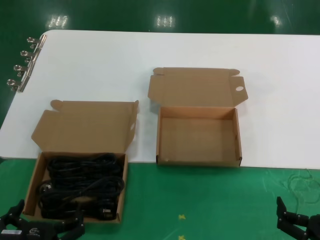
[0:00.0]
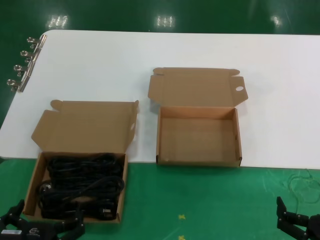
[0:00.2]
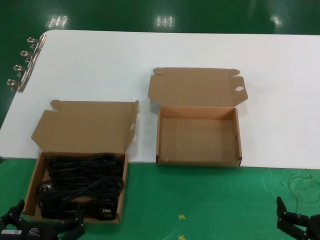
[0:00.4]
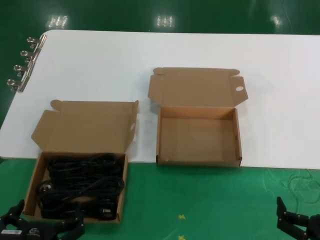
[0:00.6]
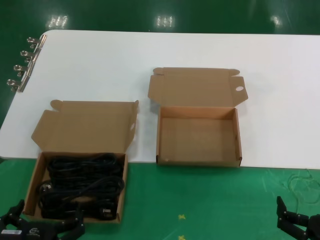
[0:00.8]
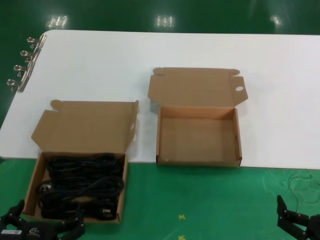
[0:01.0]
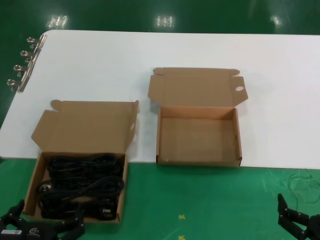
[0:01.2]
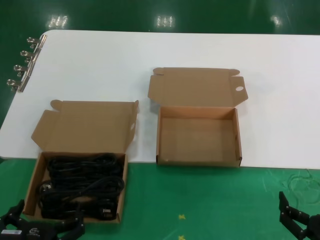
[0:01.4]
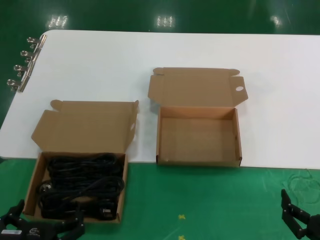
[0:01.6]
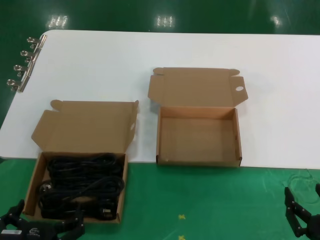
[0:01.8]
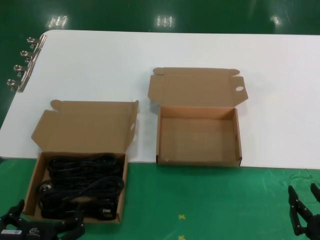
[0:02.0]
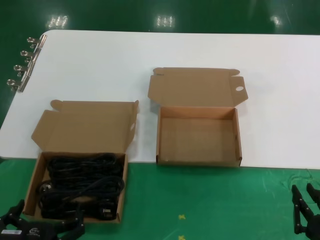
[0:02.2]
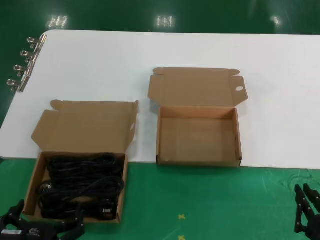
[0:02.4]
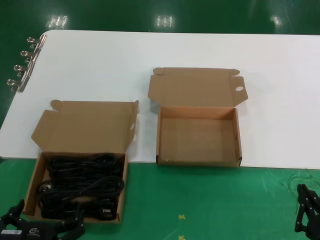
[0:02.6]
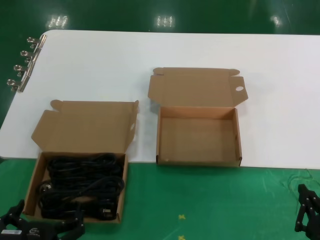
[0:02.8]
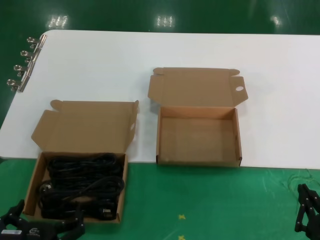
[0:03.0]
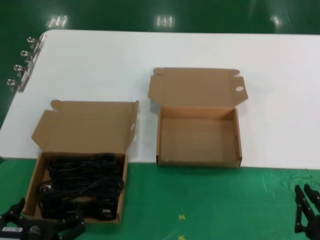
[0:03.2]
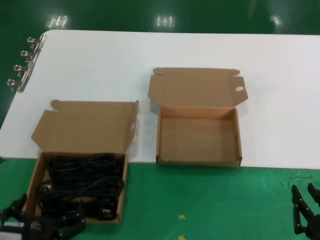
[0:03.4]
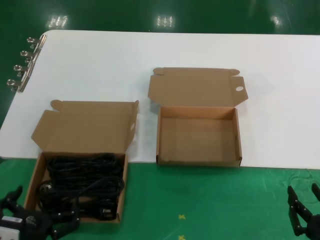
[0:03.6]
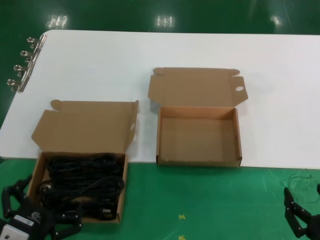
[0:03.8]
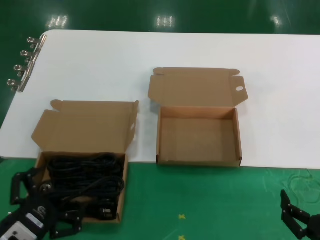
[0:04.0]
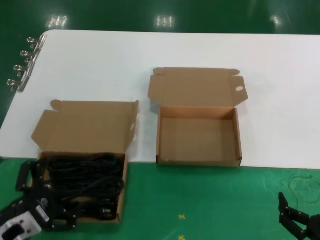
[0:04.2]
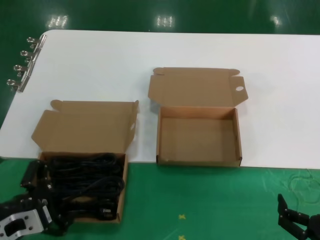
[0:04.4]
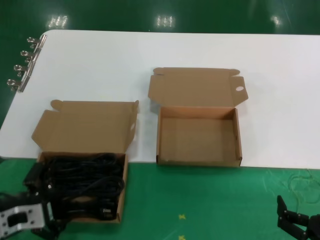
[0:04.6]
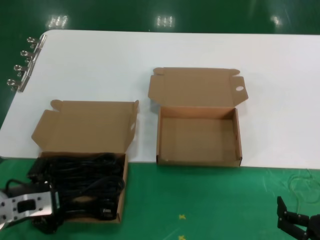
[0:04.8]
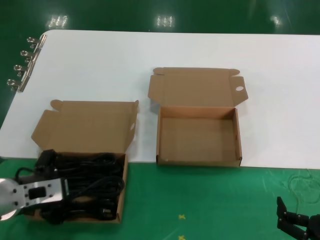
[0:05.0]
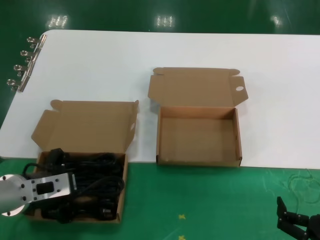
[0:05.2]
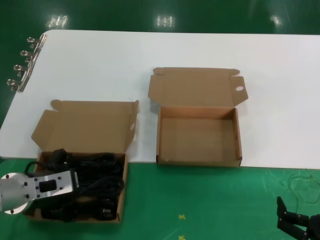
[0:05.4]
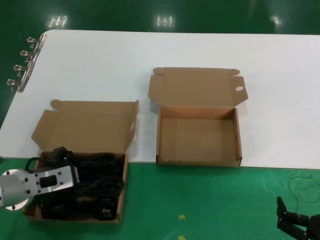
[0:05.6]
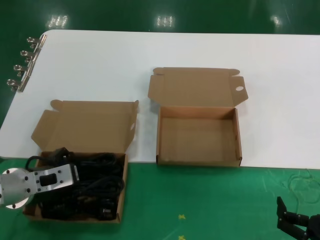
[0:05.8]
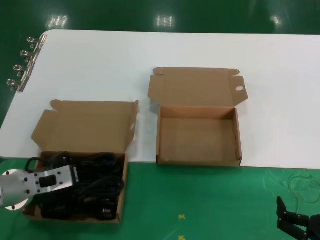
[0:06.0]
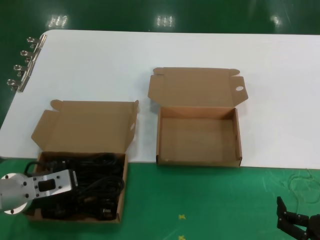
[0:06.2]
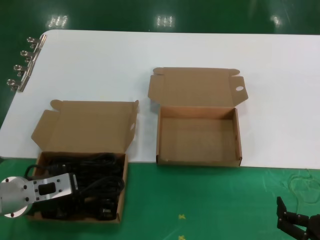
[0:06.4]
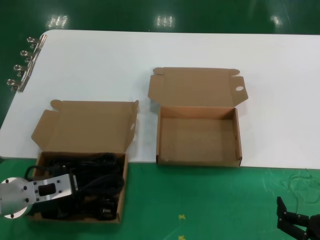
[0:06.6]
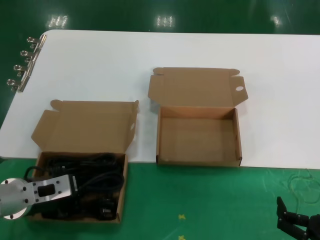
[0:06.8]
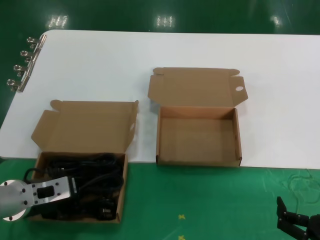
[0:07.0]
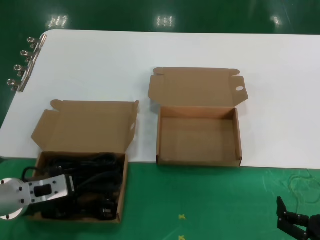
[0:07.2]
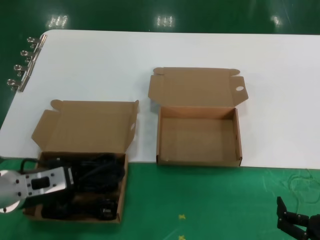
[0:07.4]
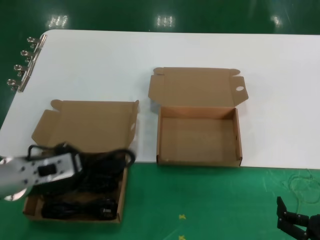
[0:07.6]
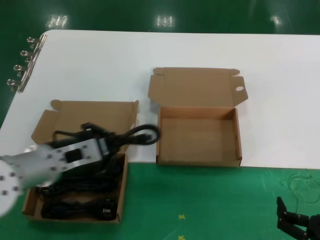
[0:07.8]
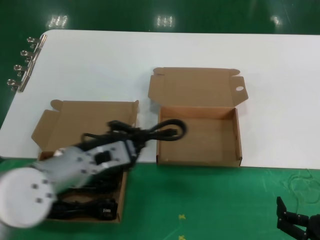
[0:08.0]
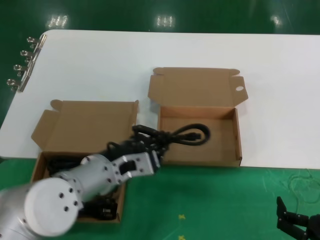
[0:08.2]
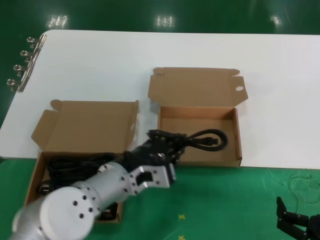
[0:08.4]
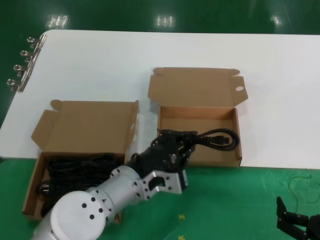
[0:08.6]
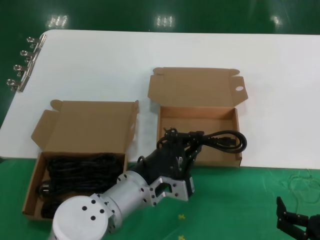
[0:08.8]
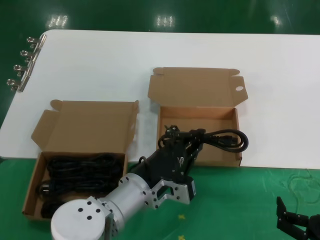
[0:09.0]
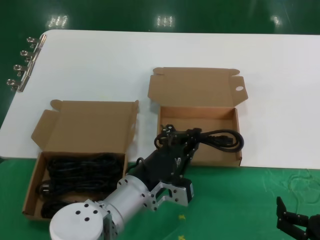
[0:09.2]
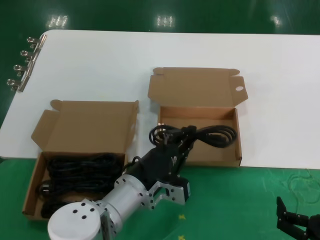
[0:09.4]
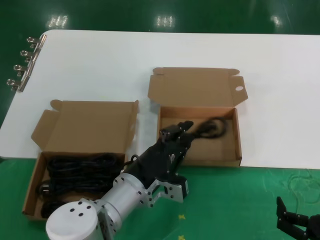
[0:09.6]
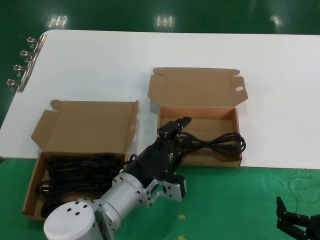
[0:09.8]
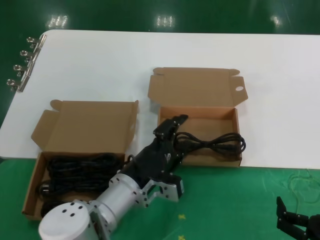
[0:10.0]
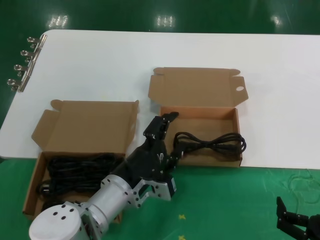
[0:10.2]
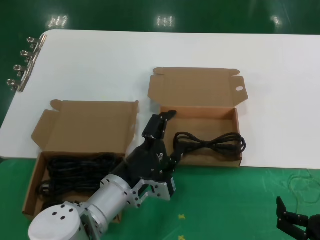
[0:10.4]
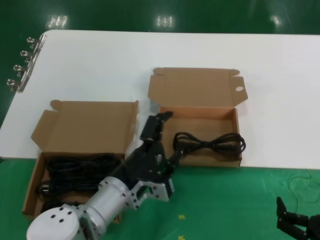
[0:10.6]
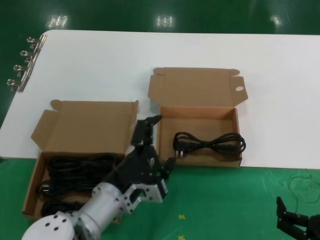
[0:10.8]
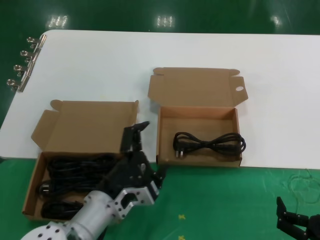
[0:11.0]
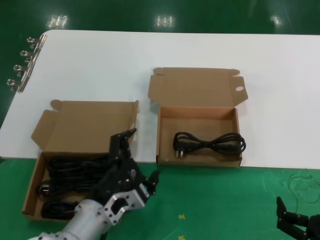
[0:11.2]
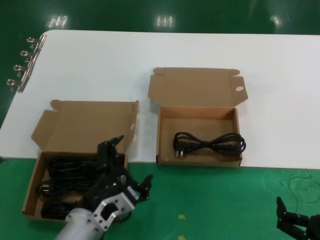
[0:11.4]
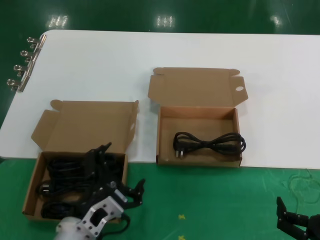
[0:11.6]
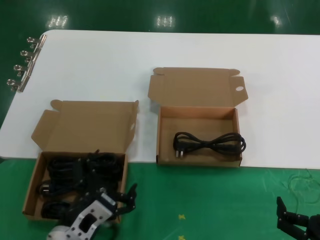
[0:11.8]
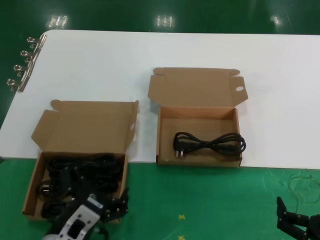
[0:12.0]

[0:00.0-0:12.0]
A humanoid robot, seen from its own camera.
Task of the whole recording: take the parts from the box containing them and put them into an empty box.
Step, 0.0 to 6.0 s: Grasp the data cable.
Step, 6.4 to 10.2 s: Place the data cable in the another box.
0.0 to 3.0 s: Both hands stay put.
3.0 to 4.4 s: The left hand moves to the left, upward and forward, roughly 15 cm.
4.4 to 6.0 s: The left hand shifts roughly 10 cm forward and upward.
6.0 to 7.6 s: The hands make only small movements.
7.6 to 9.0 s: The left hand is displaced to the right and downward by about 20 cm.
9.0 to 10.4 s: The hands move only a little.
10.4 to 12.0 s: The left hand moves backward, to the left and downward, roughly 15 cm.

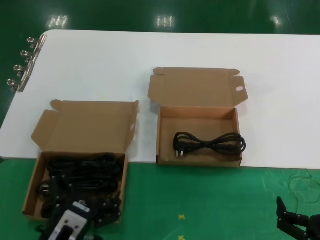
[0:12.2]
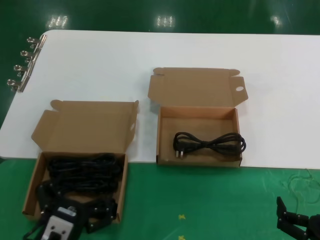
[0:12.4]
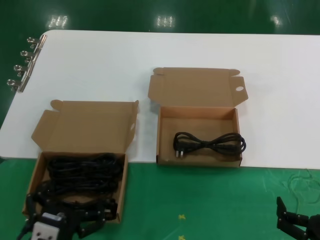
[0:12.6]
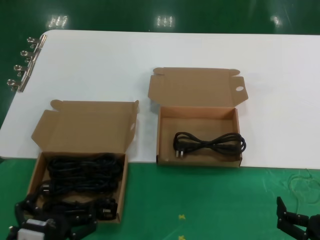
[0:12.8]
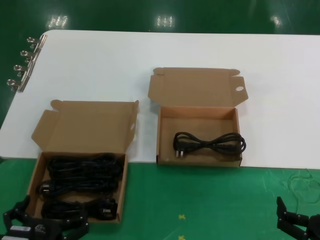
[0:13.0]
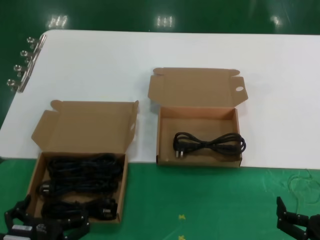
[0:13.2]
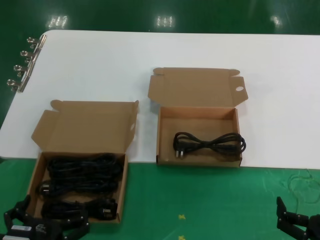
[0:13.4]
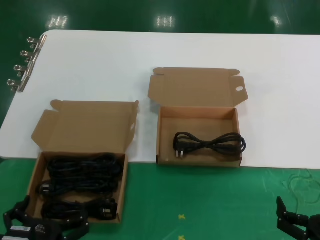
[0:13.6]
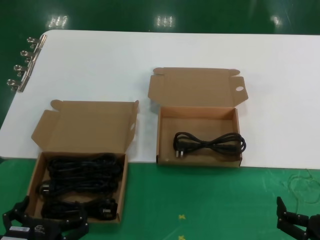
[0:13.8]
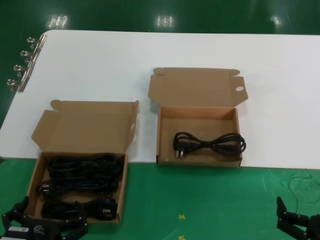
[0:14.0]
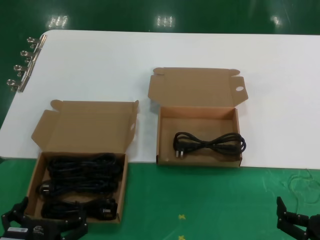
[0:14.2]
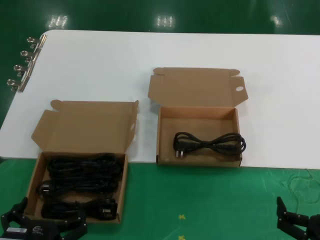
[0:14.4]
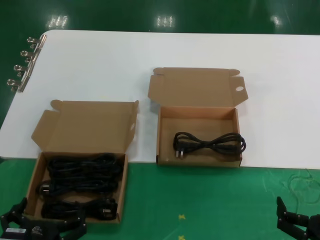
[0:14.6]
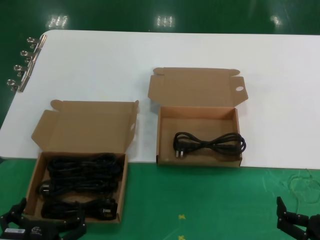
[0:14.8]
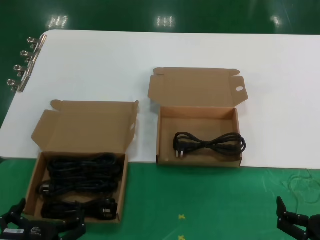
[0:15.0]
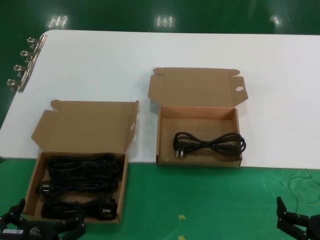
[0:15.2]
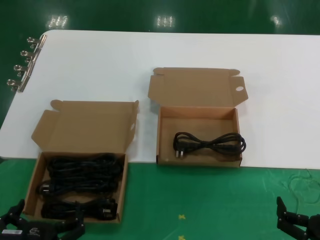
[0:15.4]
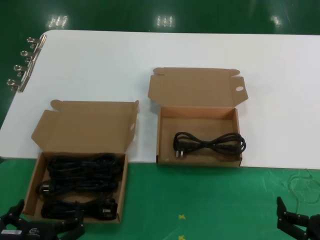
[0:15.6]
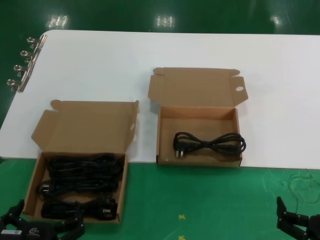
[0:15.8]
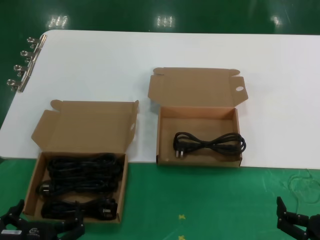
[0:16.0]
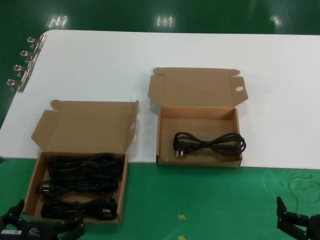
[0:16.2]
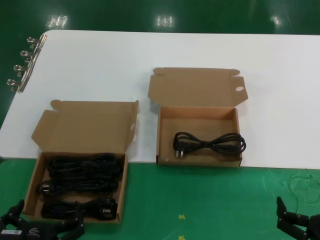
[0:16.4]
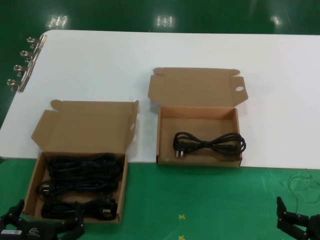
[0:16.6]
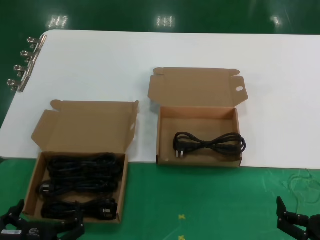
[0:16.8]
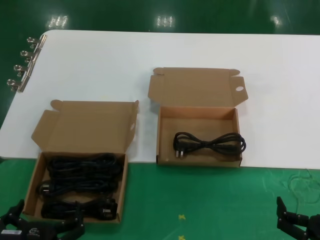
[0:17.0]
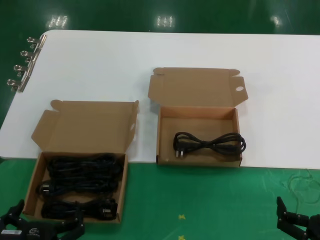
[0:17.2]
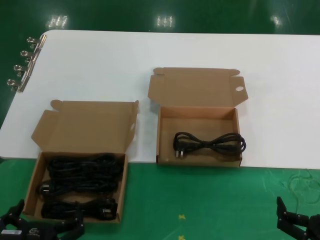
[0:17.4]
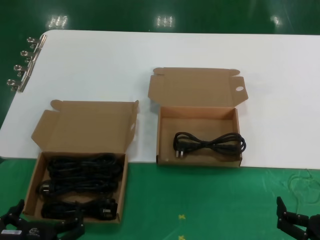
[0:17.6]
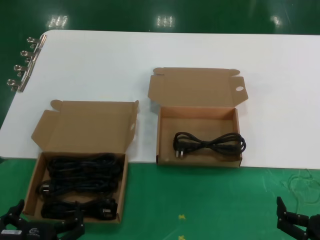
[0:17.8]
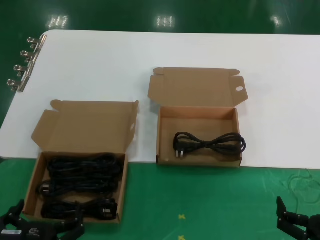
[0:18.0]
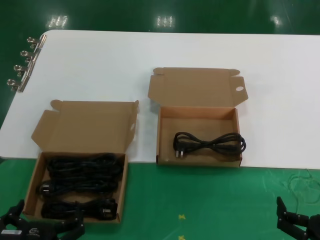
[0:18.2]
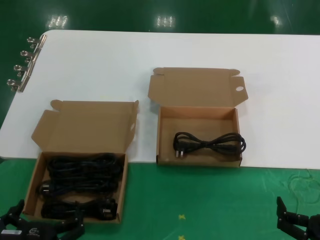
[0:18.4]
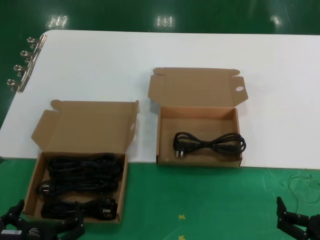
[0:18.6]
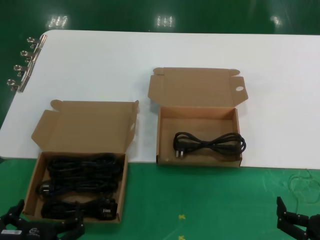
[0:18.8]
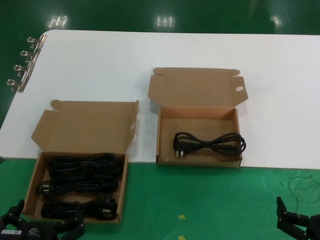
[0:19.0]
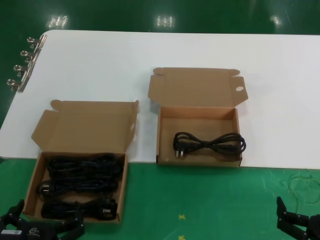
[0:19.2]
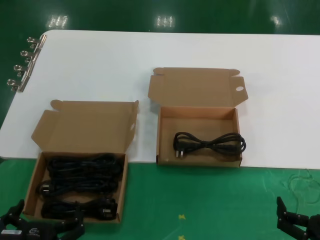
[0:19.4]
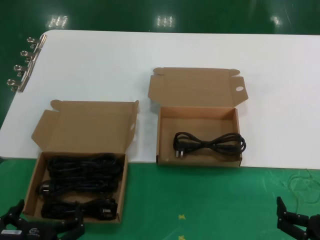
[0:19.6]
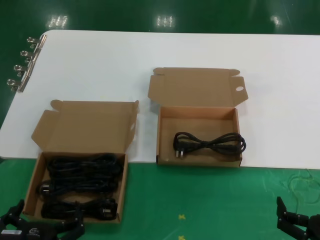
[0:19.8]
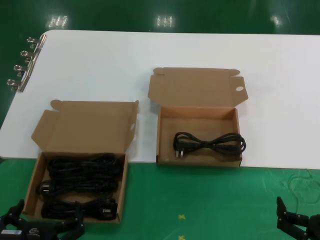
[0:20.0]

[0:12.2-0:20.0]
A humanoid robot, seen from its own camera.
Task of the whole recording: take the parts from the box containing them and put them into an empty box.
12.2 to 13.8 s: The left hand moves backward, about 5 cm.
13.8 to 20.0 s: Both hands stay about where they are.

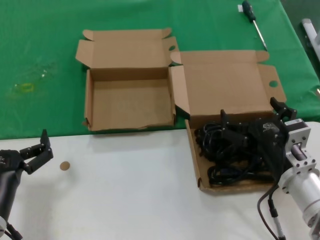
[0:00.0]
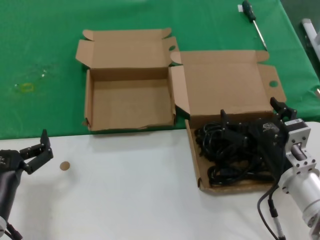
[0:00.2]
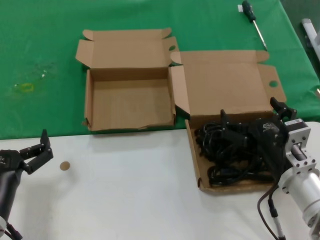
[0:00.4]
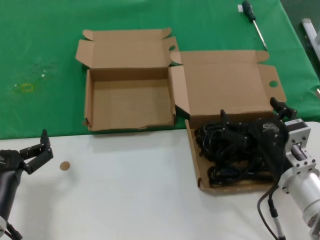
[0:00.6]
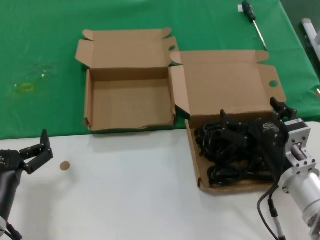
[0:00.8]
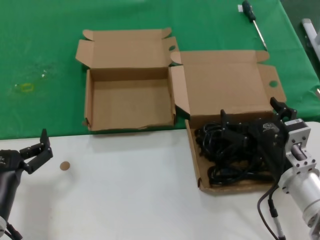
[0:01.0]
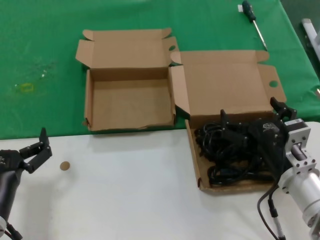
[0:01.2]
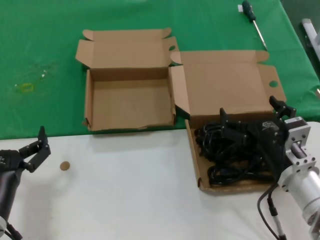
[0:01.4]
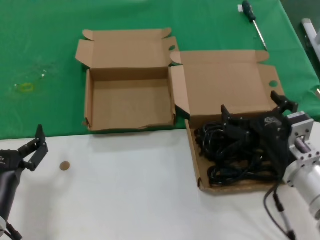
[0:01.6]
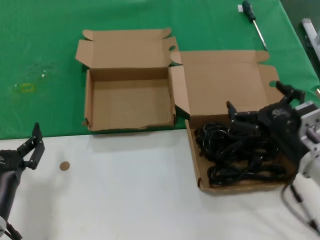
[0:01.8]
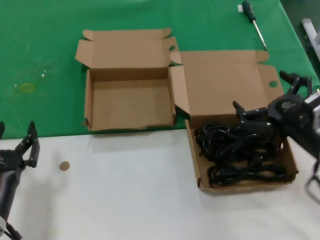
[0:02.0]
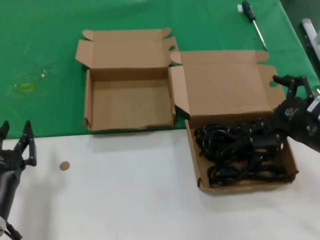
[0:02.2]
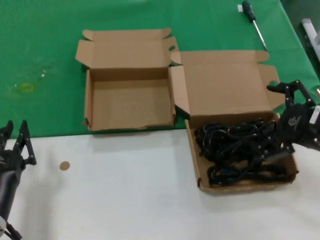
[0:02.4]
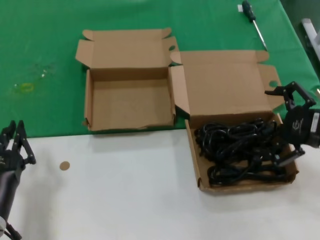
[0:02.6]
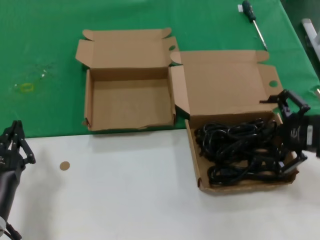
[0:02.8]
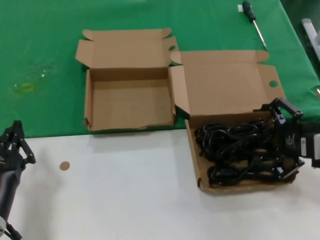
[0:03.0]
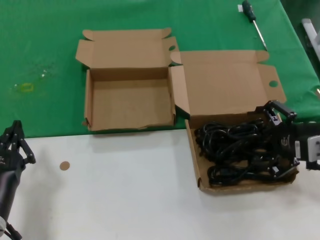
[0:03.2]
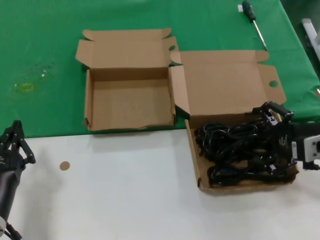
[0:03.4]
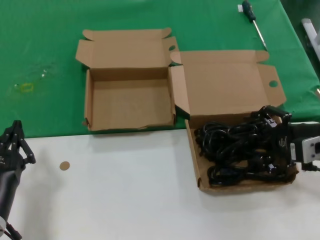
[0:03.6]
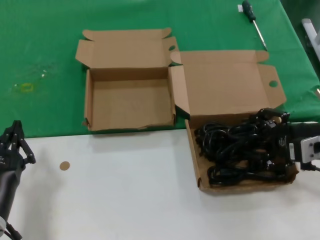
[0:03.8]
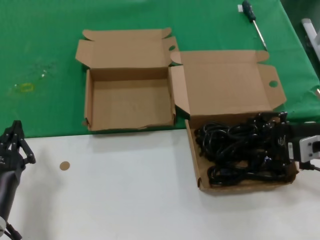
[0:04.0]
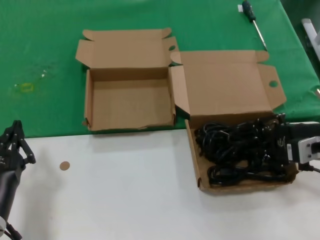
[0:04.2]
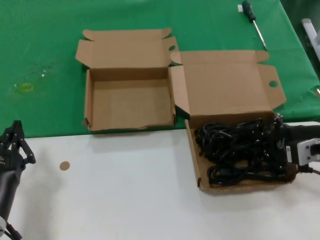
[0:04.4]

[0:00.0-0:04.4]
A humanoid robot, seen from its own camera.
Task of the whole recording: take the parts from the box containing them and put them into an empty box.
0.0 to 1.4 s: The two hands keep their place.
1.4 to 3.0 s: The right hand goes about 15 cm to the right and upward.
3.0 to 4.4 s: There are only small adjustments of the hands.
